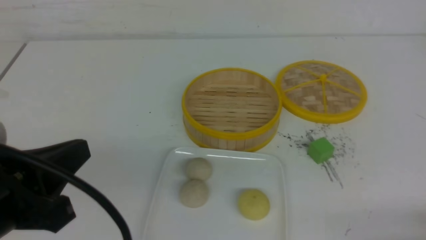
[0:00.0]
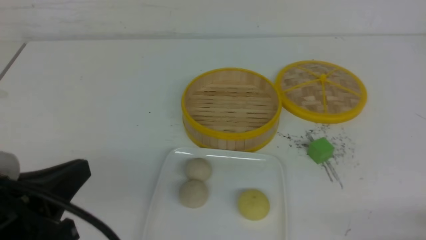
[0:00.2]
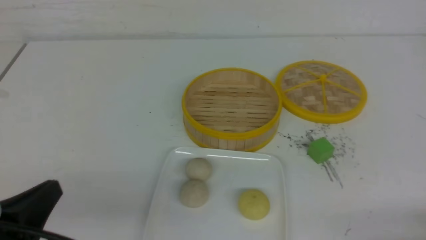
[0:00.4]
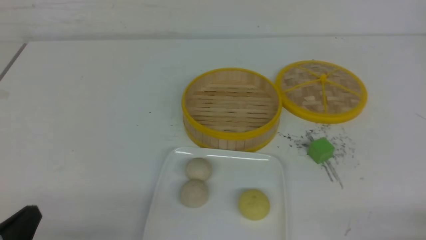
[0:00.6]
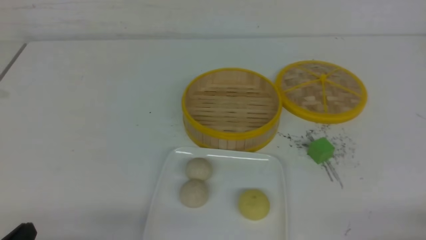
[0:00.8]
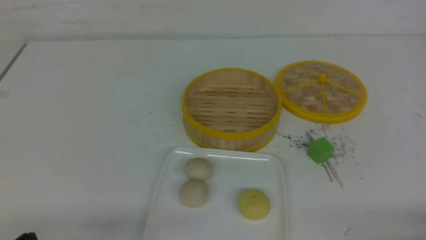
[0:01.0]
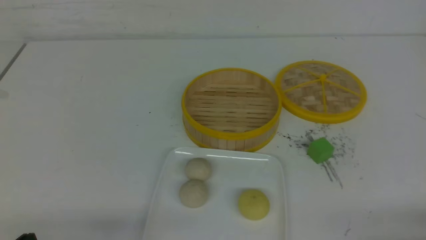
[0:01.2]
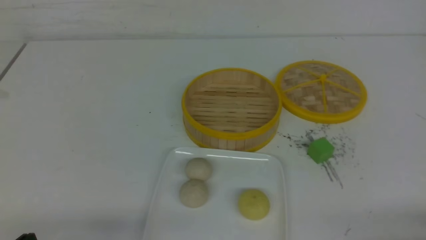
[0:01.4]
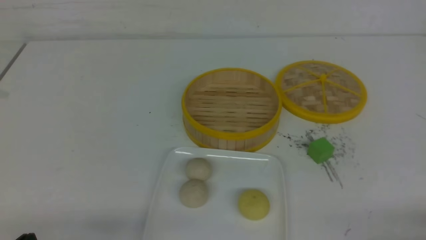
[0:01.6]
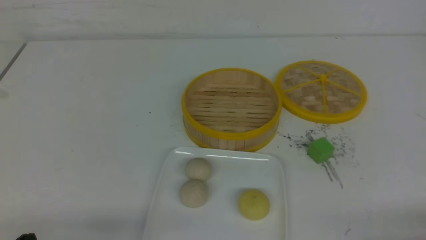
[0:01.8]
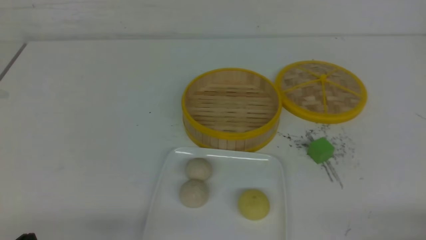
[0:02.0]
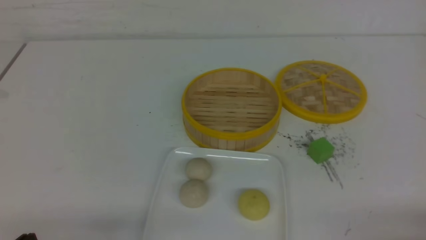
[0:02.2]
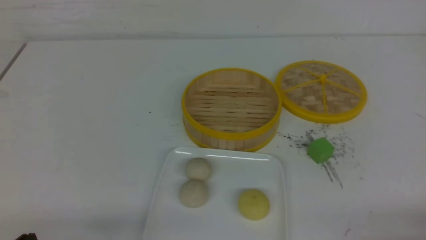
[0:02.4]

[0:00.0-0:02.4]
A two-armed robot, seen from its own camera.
0:00.0 to 0:01.2: The left gripper is displaced downward by approximately 15 cm.
0:01.2 to 0:02.4: Both grippers stay put.

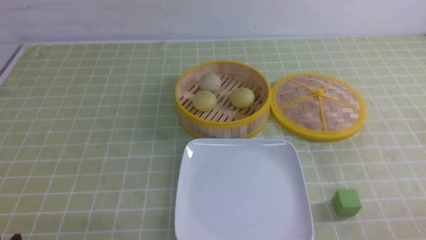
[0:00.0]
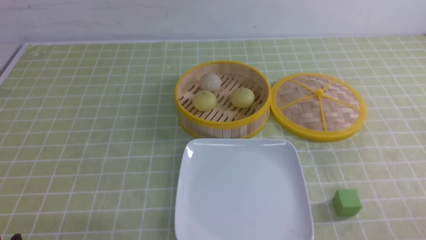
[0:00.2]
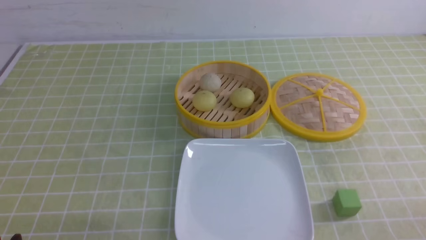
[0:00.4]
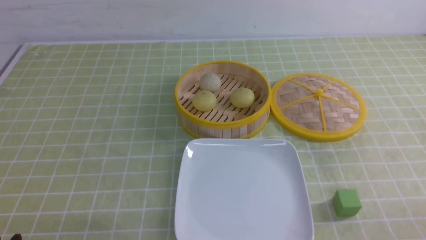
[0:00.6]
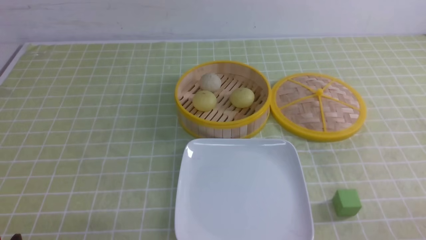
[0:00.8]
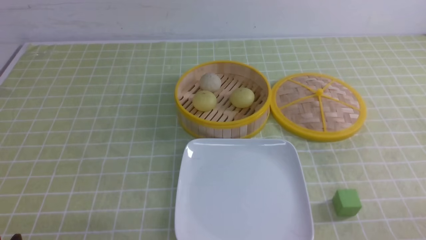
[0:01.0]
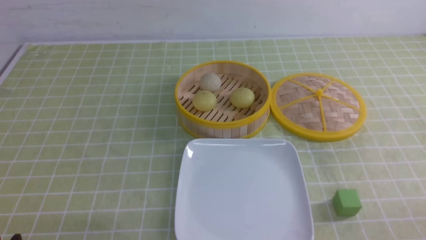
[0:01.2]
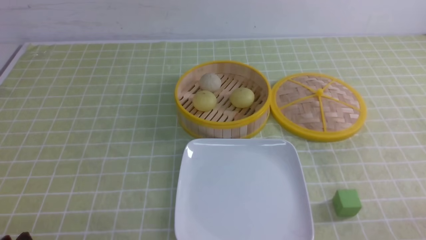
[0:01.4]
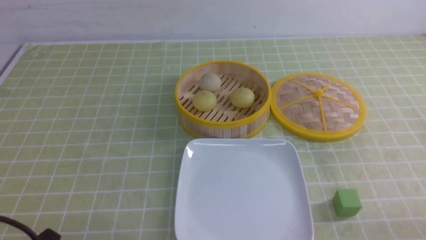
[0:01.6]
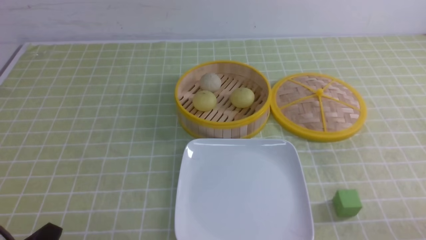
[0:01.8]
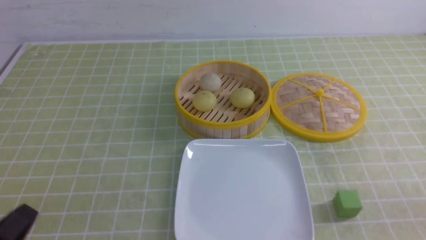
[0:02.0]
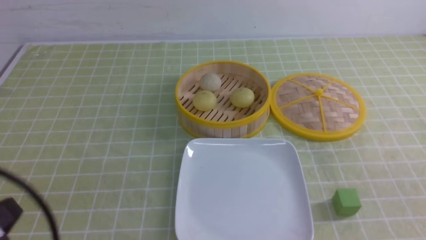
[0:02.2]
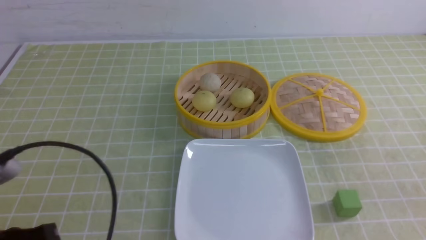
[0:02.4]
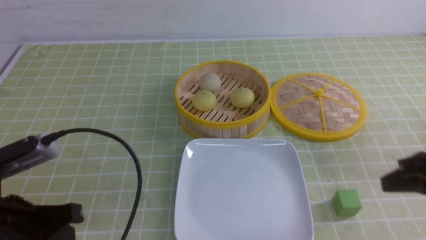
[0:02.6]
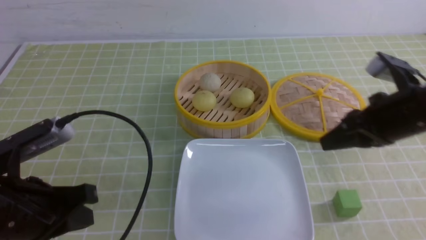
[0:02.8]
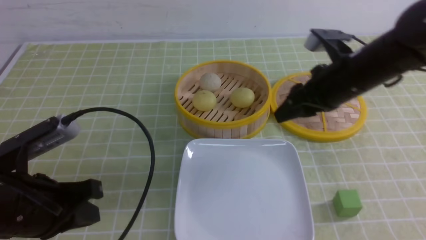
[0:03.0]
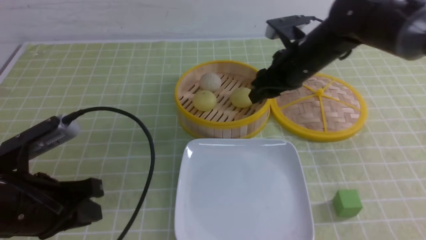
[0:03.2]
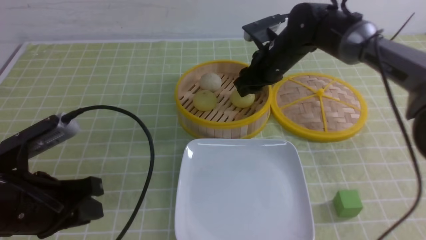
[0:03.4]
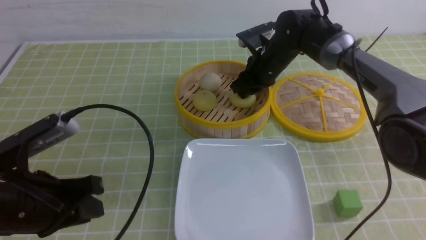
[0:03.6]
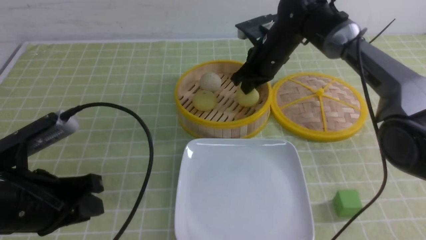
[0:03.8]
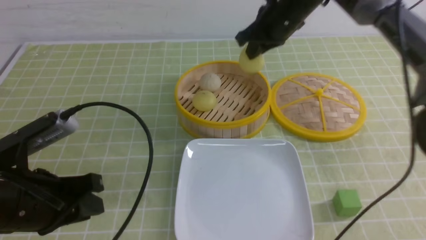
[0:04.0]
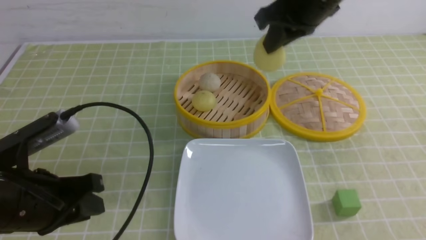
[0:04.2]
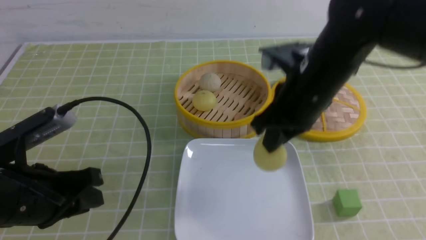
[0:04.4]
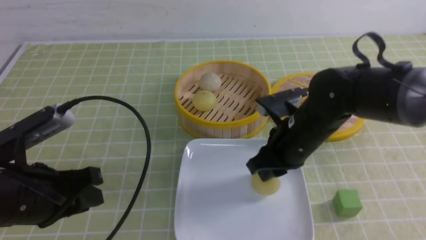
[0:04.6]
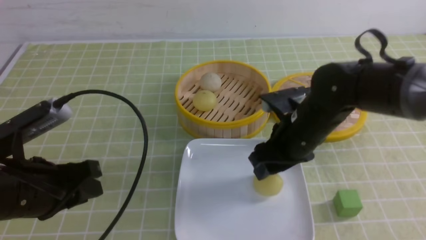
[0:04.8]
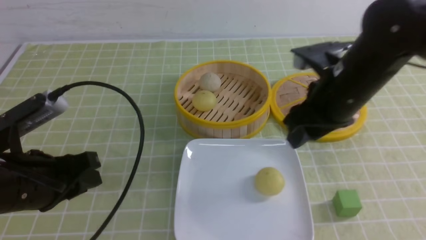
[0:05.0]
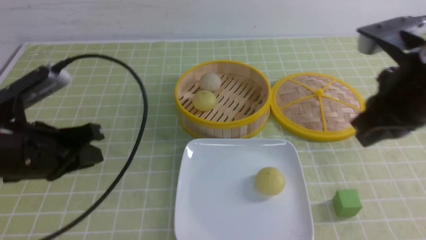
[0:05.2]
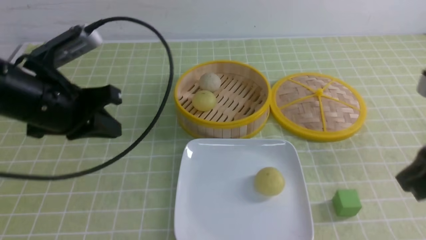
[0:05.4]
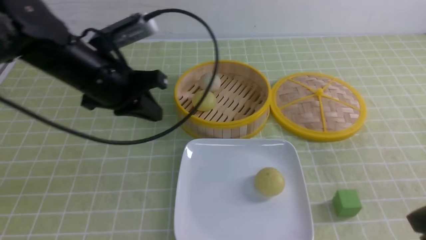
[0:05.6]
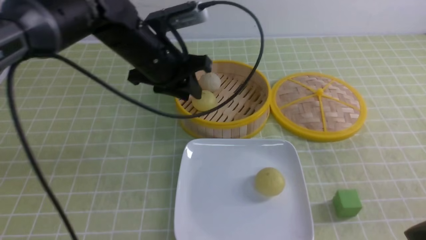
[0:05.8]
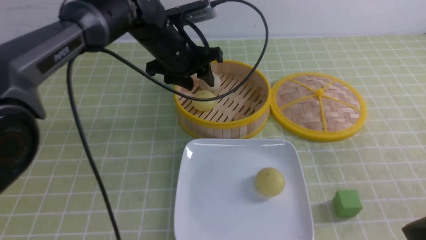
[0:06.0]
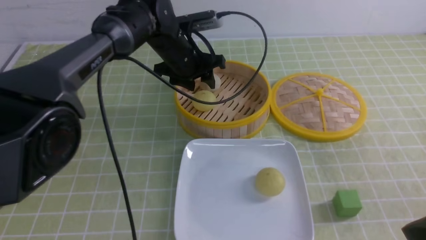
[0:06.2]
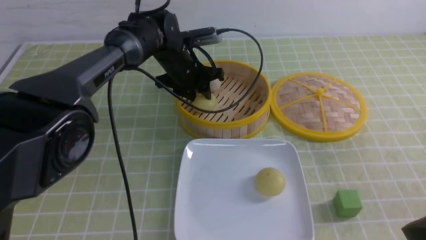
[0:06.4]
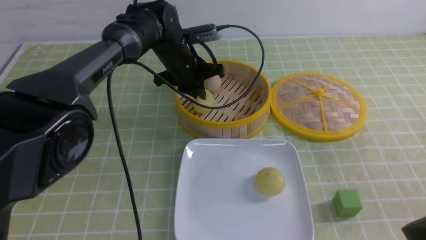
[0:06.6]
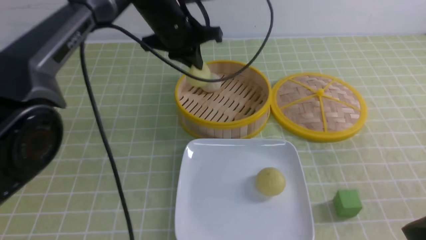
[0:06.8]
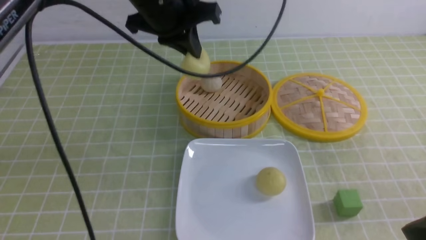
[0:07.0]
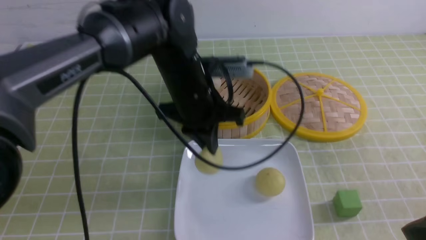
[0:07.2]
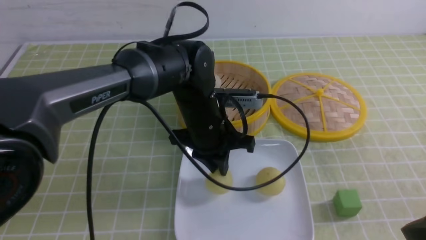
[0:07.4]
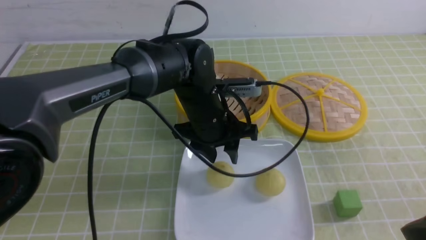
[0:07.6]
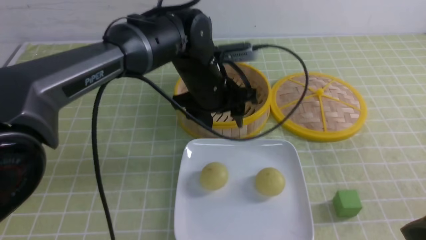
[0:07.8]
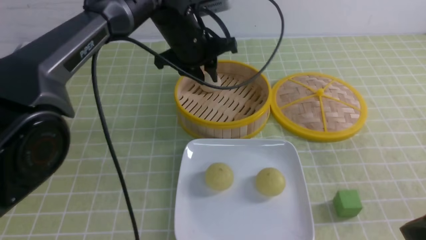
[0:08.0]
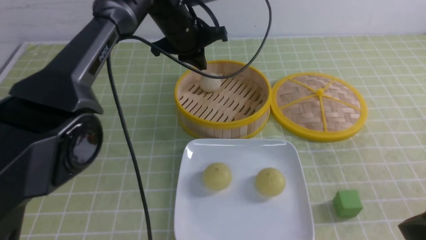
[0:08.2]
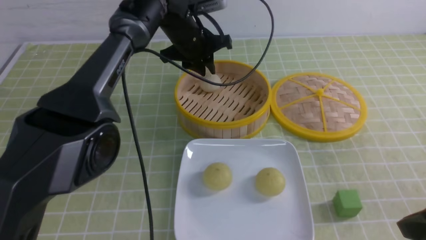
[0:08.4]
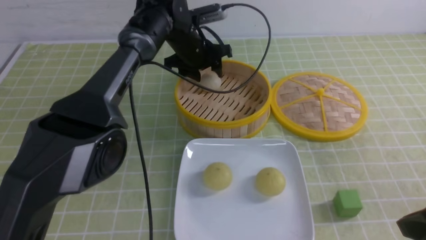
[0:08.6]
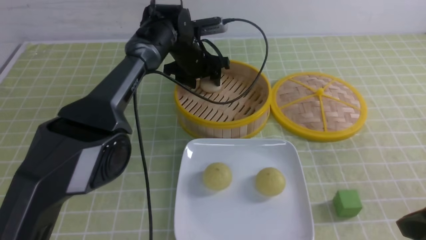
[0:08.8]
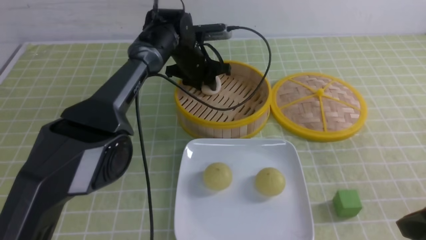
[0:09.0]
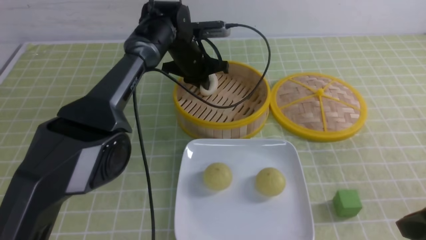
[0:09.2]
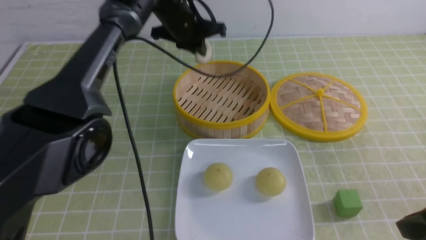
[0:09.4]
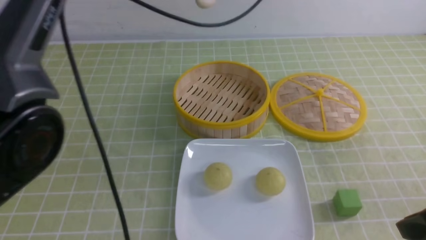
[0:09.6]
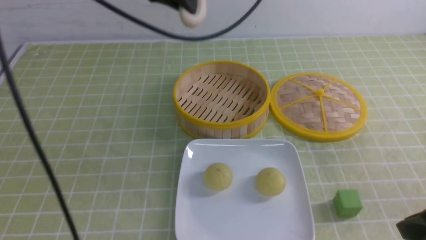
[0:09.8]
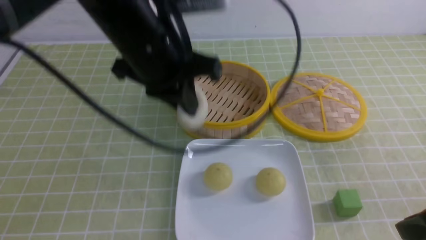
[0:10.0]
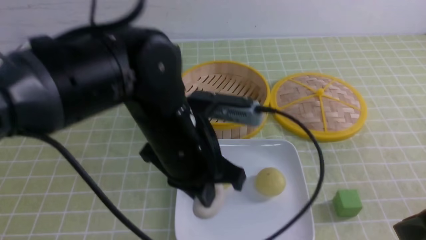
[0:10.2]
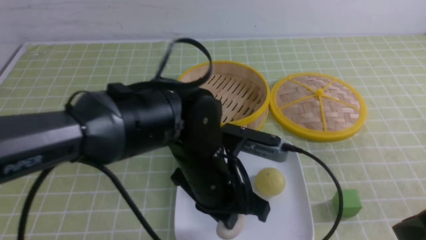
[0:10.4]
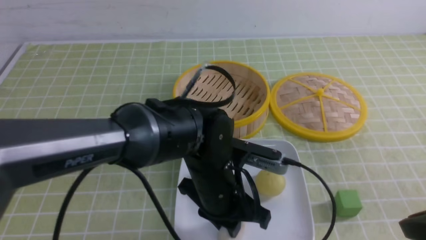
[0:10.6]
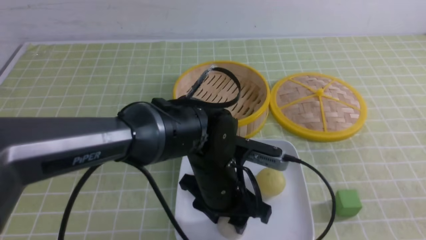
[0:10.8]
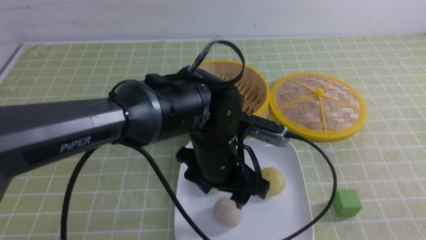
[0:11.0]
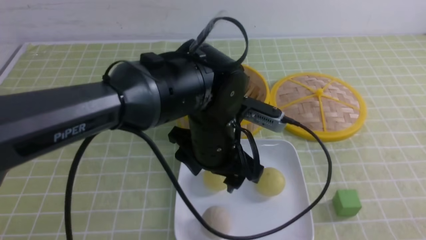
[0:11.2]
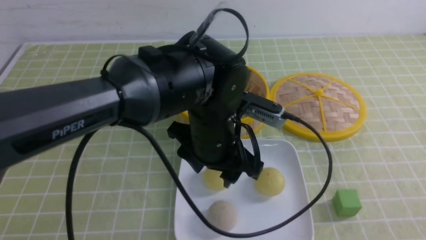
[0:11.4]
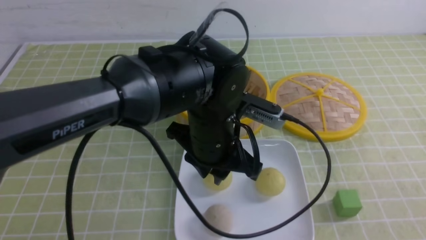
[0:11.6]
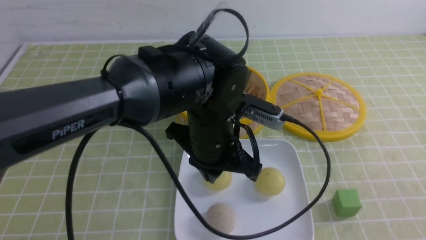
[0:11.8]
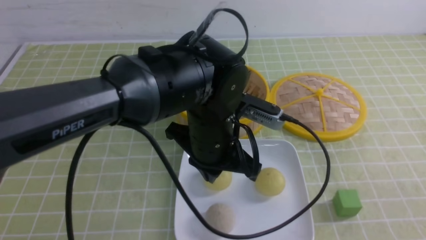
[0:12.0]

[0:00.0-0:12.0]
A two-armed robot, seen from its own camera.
Step, 0:00.0 to 0:03.6: use the right arm to grab the steamed stuffed bun that is closest to it.
Step, 0:03.8 to 0:04.6: use the right arm to put the steamed stuffed bun into the plate.
Step, 0:04.8 to 0:06.4: use the left arm to grab the steamed stuffed bun that is closest to it.
Step, 0:06.6 to 0:07.4: use the left arm to put the steamed stuffed bun into the plate.
Step, 0:07.8 to 0:09.0: use the left arm to grab the steamed stuffed bun that is closest to it.
Step, 0:09.2 to 0:10.8: use the left arm to put the steamed stuffed bun into the plate.
0:01.6 to 0:03.0: The left gripper travels forward and upward by about 15 cm. Meanwhile the right gripper is displaced forward and to the left by some 35 cm, and closes, then reopens.
0:03.0 to 0:04.4: The right gripper heads to the left, covering approximately 5 cm, reaches approximately 15 cm forward, then returns, and closes its fingers.
0:04.4 to 0:06.0: The left gripper shifts roughly 30 cm forward and to the right, and closes, then reopens, while the right gripper is displaced backward and to the right by approximately 25 cm, and opens, then closes once more.
0:06.0 to 0:07.6: The left gripper shifts about 10 cm backward and to the right, and closes and opens again.
0:07.6 to 0:09.0: The left gripper shifts some 15 cm forward.
0:09.0 to 0:10.4: The left gripper heads backward, covering approximately 30 cm.
0:10.4 to 0:12.0: The right gripper moves backward, about 10 cm, and closes up. Meanwhile the left gripper opens and closes again.

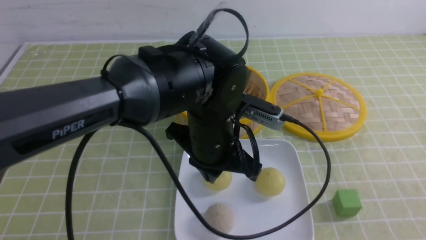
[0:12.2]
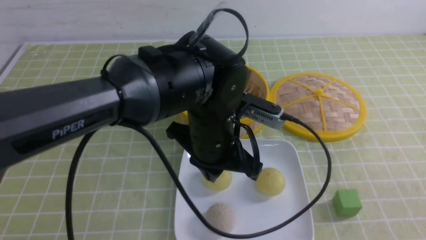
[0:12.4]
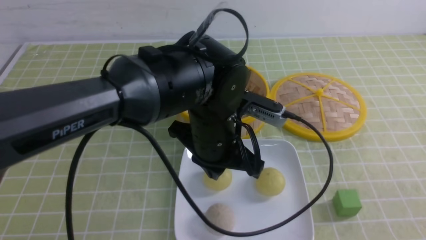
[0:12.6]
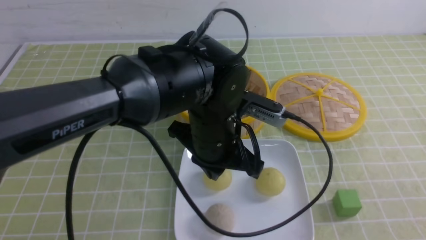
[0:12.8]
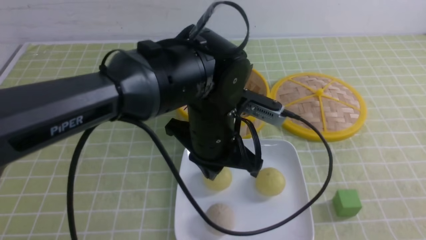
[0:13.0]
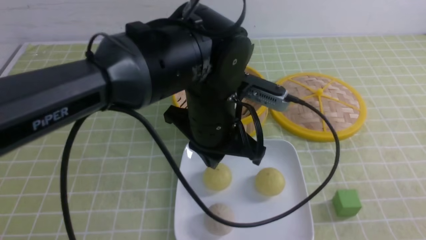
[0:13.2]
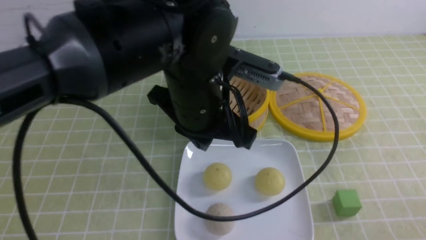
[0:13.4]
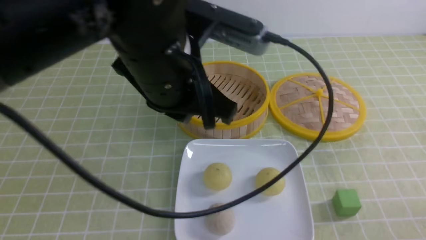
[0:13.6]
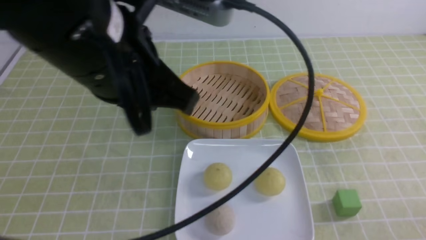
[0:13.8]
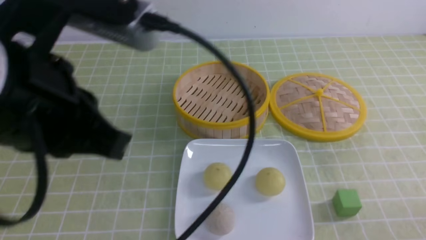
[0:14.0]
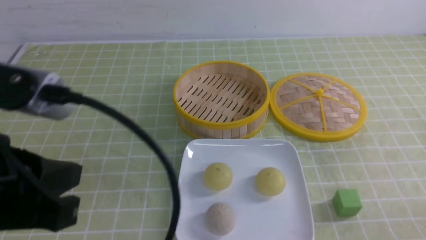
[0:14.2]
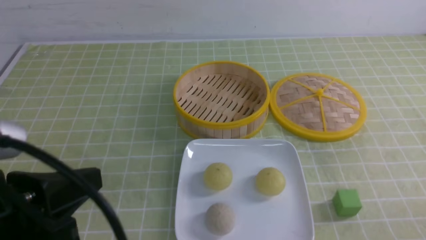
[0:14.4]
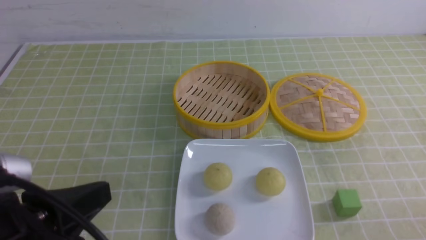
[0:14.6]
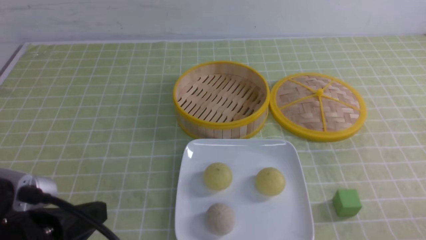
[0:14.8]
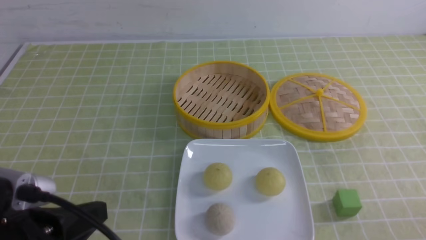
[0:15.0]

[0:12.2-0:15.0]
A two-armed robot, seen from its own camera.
0:12.2 to 0:13.6: The right gripper is displaced downward by some 10 cm, while the left gripper shifts roughly 15 cm upward and to the left.
0:13.6 to 0:15.0: The left gripper travels to the left, backward and downward by some 25 cm.
